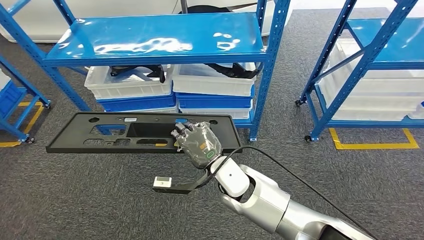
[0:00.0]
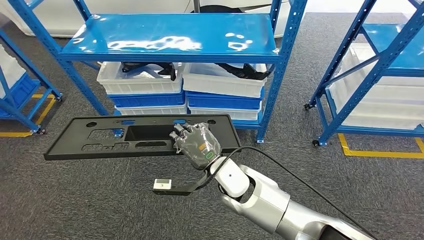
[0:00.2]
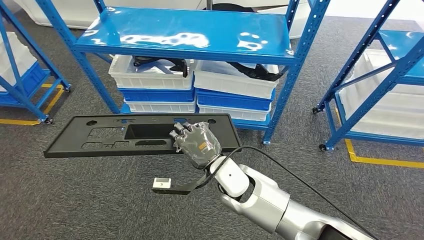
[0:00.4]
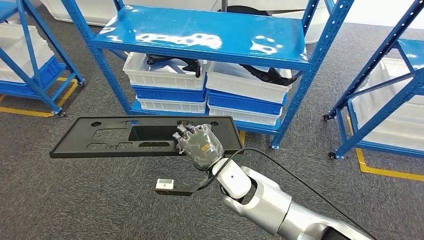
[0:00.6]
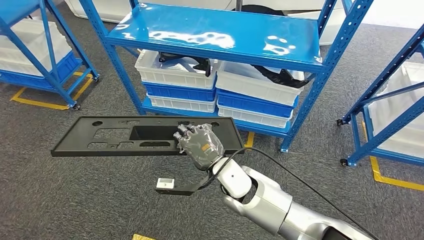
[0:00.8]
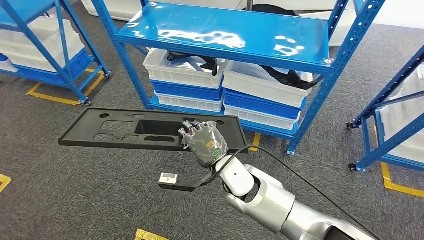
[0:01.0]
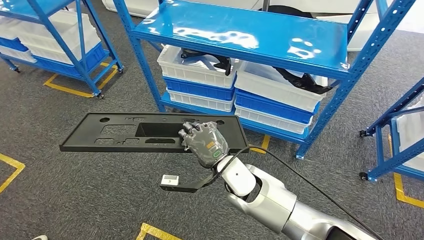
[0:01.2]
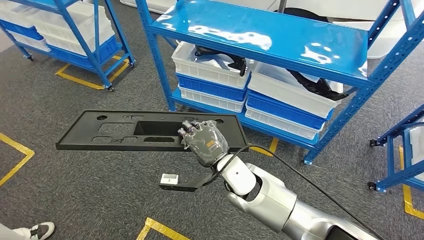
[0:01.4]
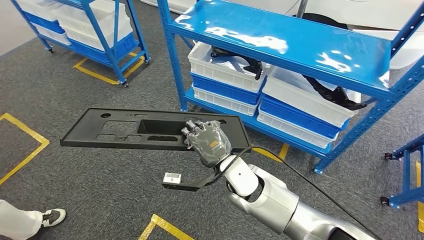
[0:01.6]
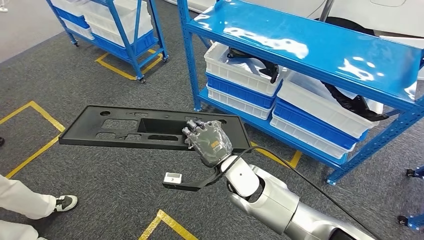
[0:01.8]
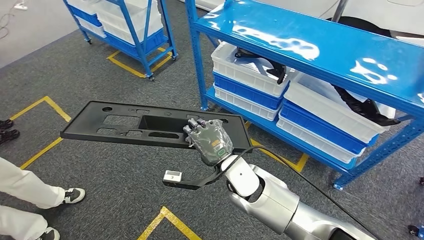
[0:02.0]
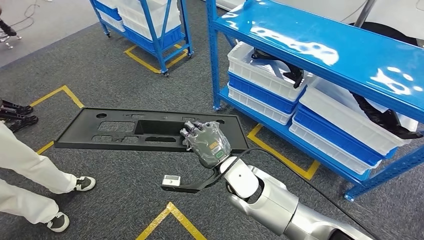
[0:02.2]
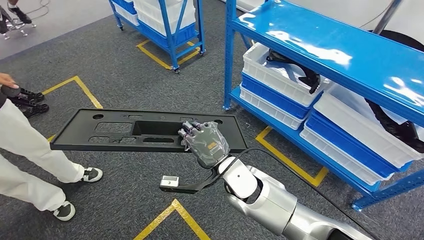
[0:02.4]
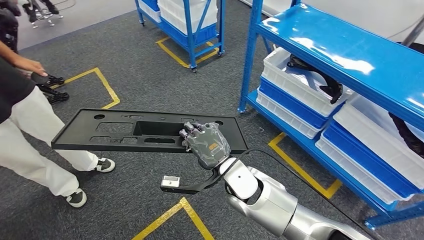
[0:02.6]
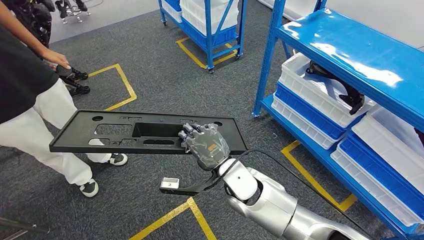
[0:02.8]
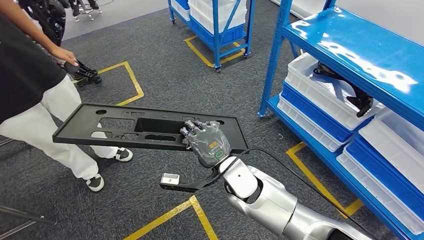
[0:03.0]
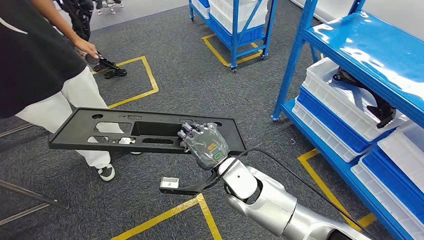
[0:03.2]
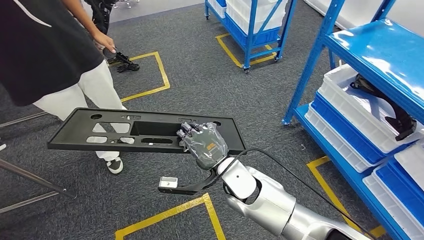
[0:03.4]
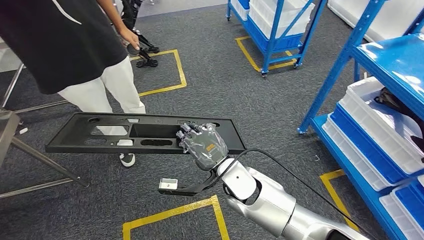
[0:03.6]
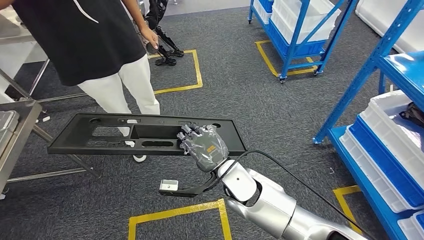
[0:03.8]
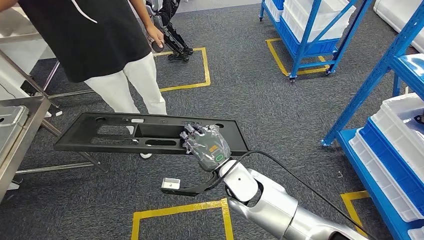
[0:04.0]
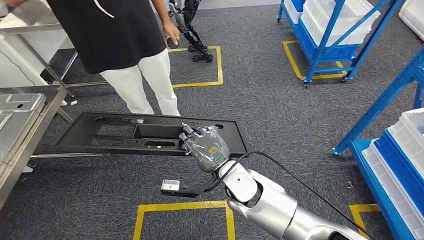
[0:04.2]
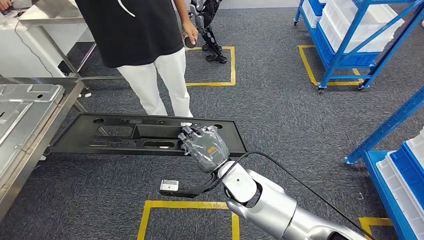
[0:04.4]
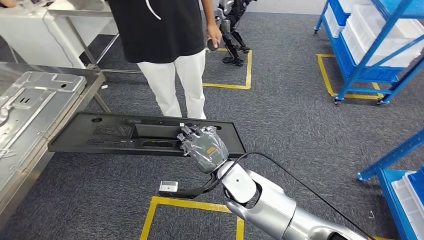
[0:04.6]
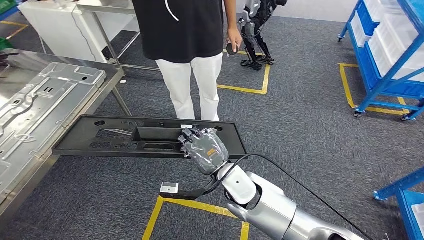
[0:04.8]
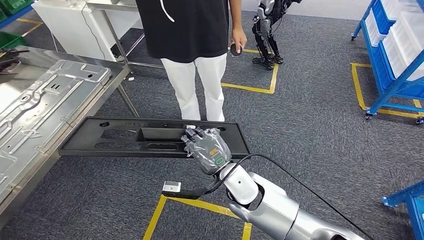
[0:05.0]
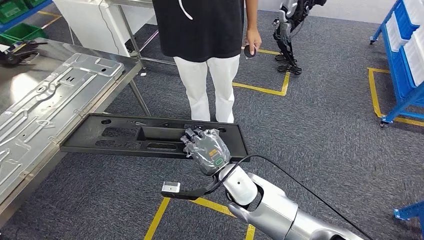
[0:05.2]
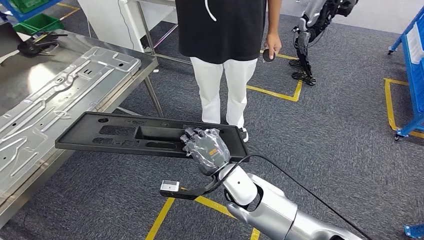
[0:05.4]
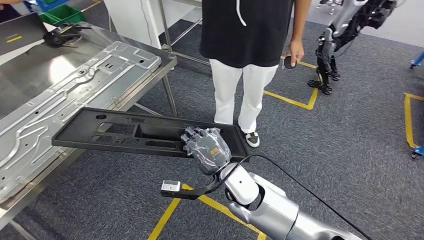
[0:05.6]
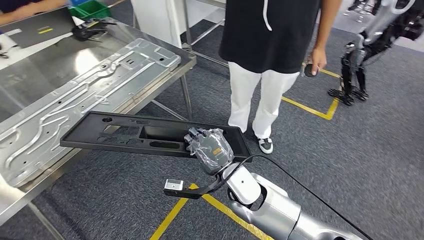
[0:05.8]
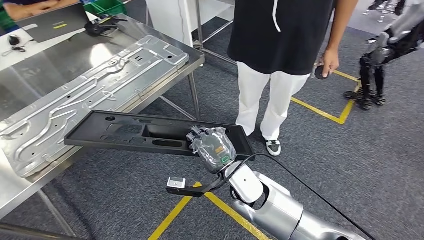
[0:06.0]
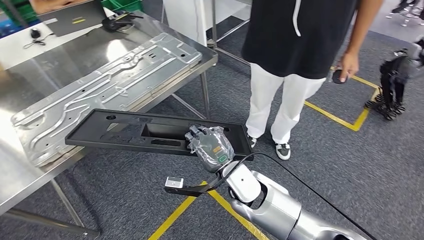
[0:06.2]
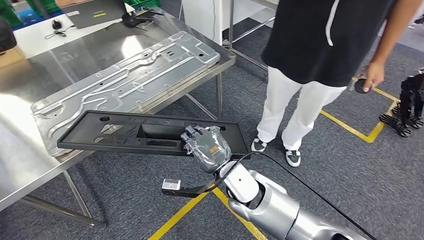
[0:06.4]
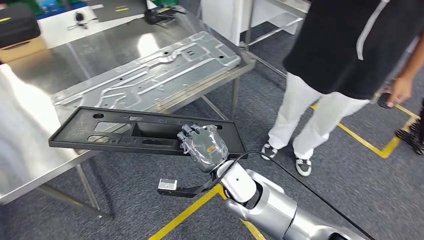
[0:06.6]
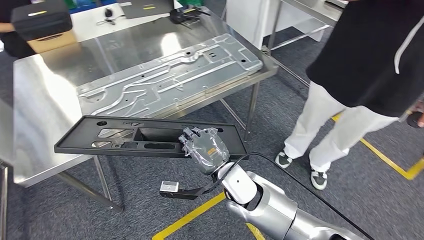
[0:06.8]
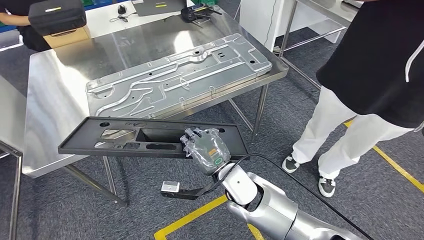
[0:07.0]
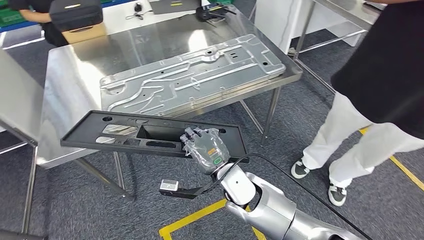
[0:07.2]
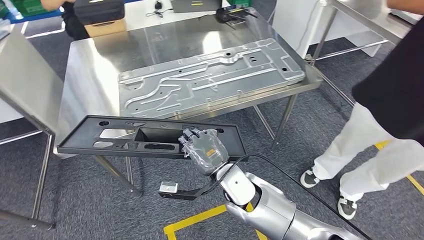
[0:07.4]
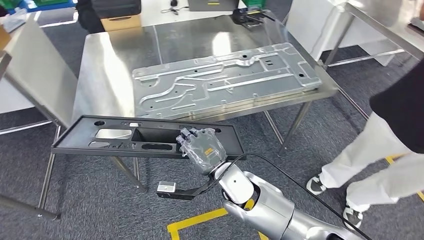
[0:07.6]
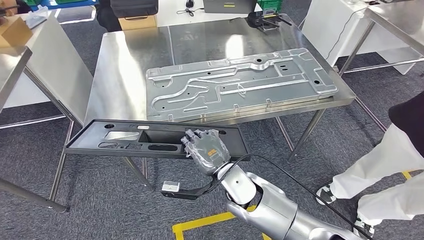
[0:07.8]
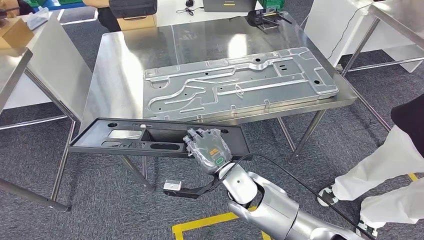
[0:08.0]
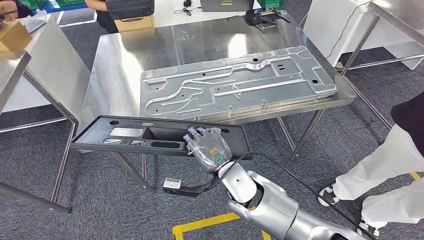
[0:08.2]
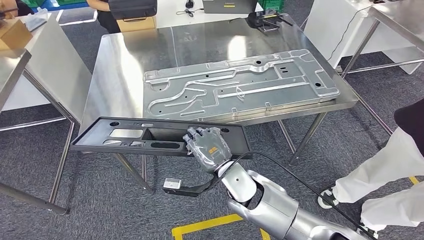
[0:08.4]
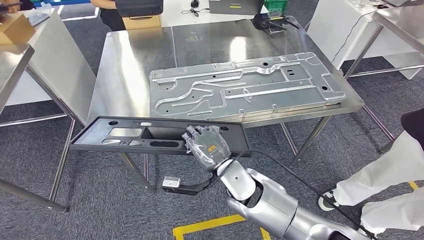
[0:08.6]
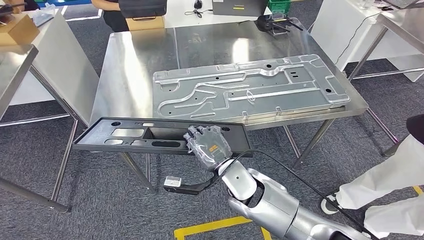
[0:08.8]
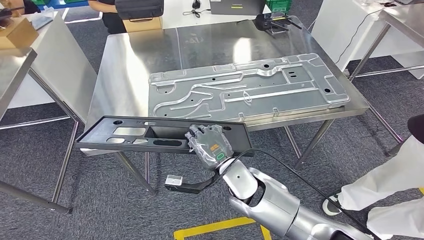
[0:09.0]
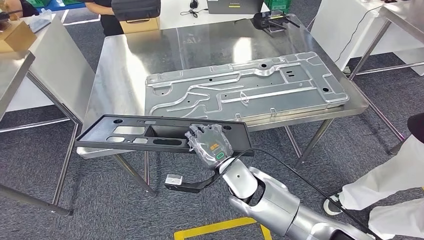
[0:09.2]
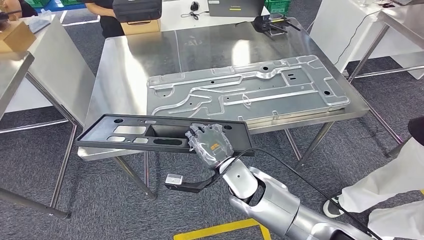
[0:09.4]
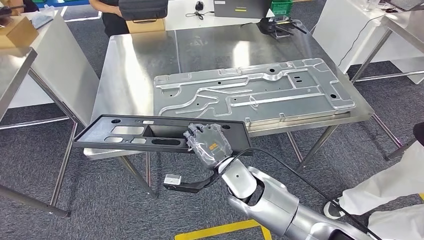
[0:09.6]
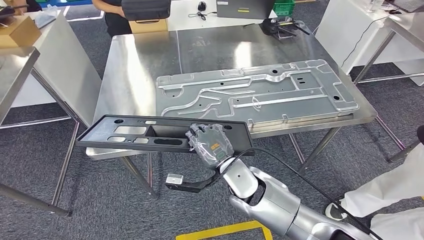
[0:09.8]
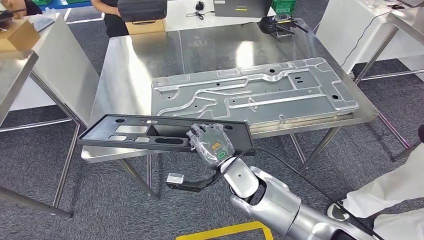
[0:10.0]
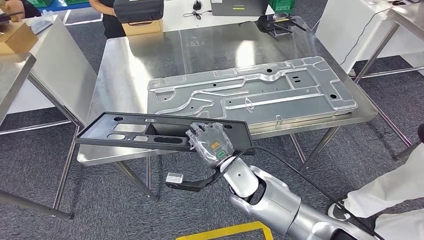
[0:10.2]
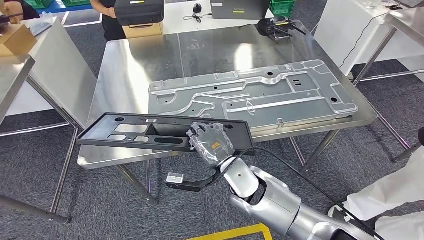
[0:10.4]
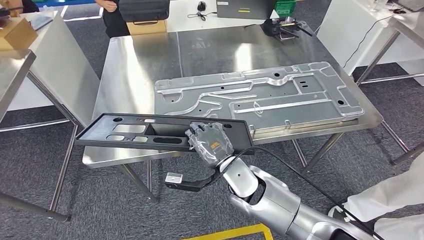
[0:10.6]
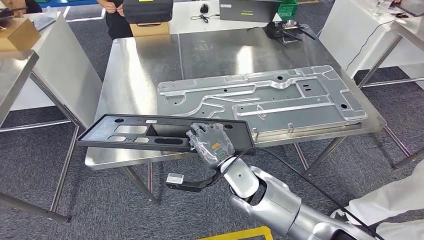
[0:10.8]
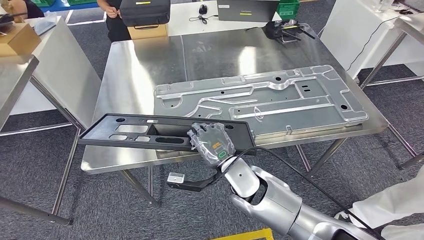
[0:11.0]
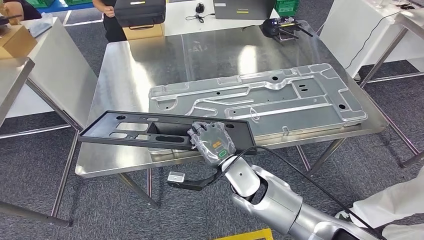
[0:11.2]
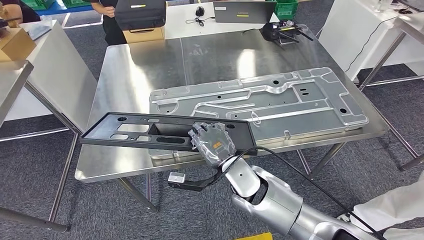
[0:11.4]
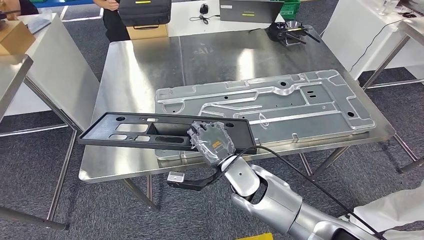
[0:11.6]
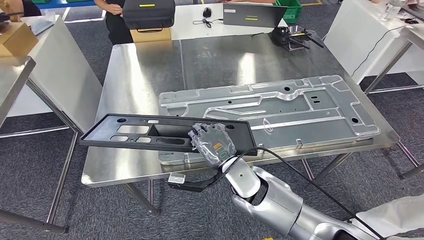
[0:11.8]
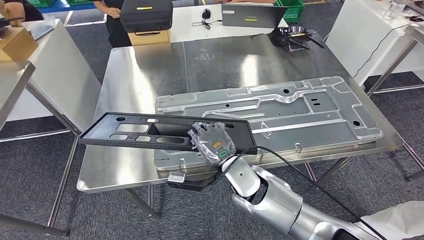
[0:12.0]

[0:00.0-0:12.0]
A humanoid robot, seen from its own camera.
Step, 0:01.0 to 0:06.4: Move the large material to the workbench.

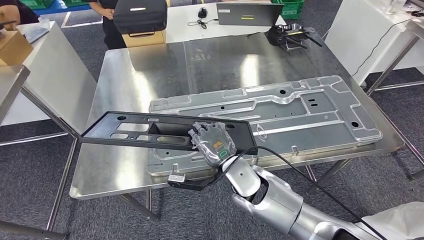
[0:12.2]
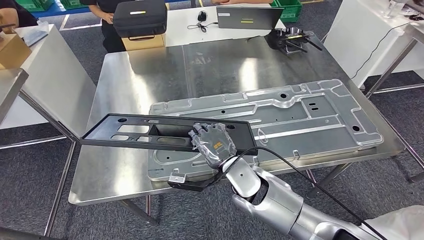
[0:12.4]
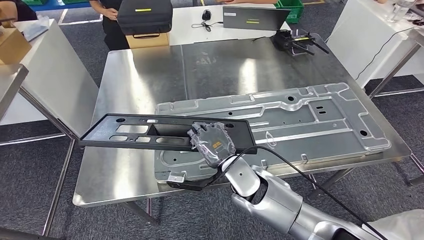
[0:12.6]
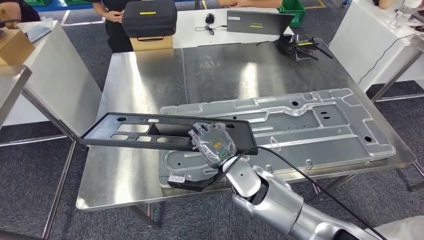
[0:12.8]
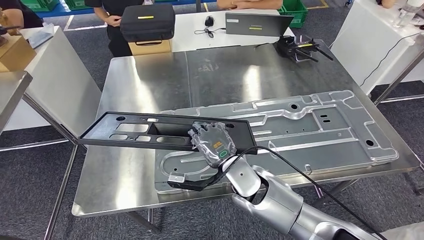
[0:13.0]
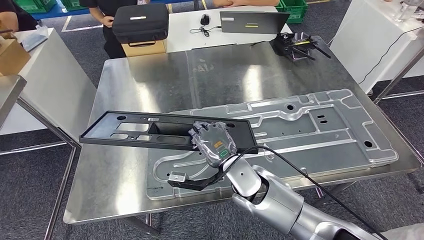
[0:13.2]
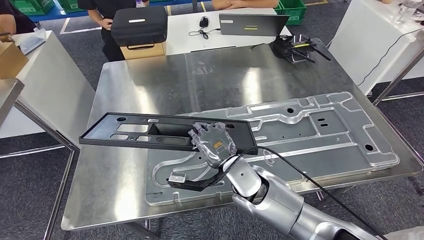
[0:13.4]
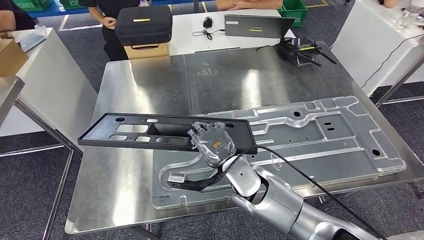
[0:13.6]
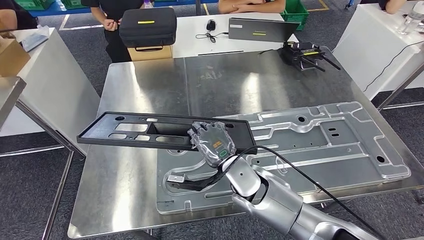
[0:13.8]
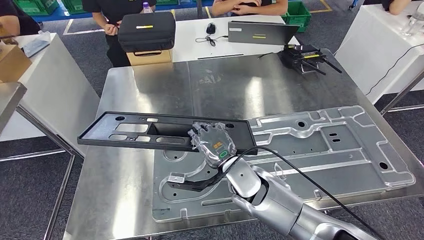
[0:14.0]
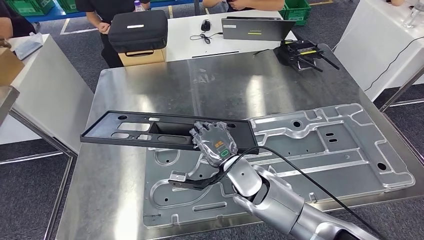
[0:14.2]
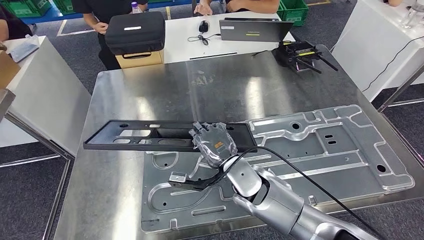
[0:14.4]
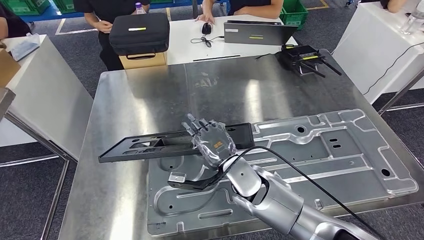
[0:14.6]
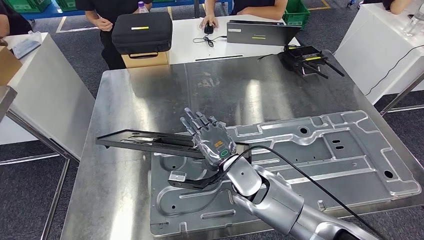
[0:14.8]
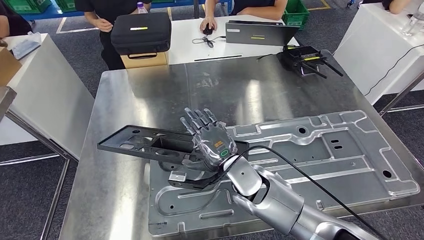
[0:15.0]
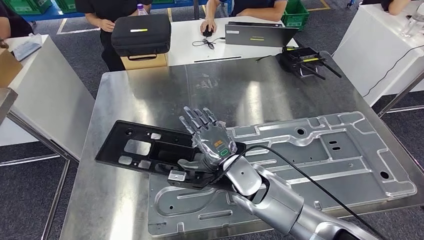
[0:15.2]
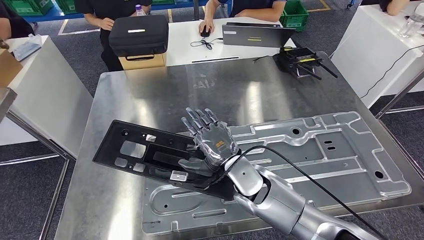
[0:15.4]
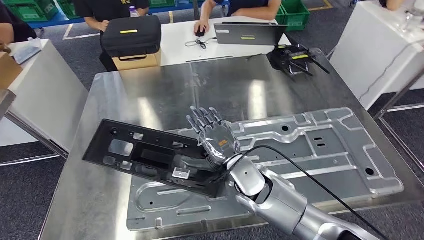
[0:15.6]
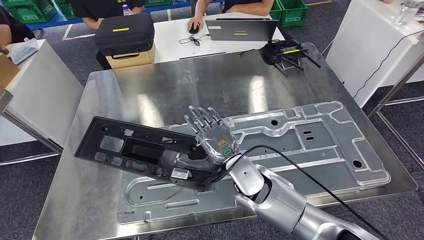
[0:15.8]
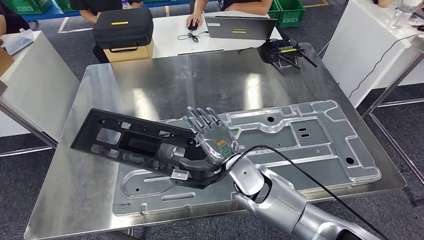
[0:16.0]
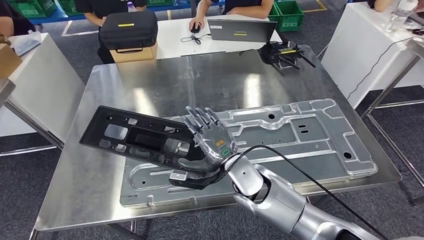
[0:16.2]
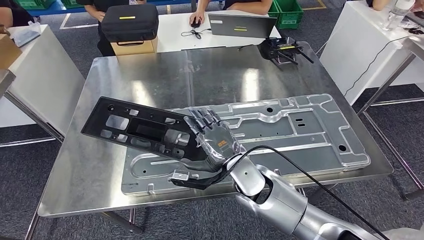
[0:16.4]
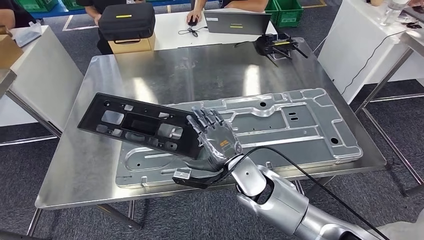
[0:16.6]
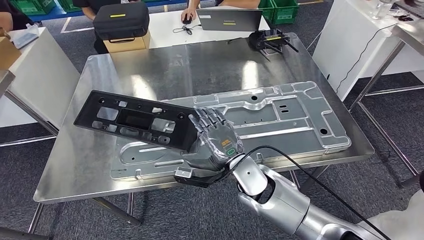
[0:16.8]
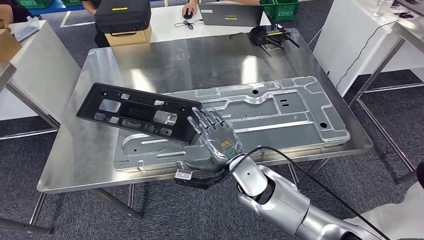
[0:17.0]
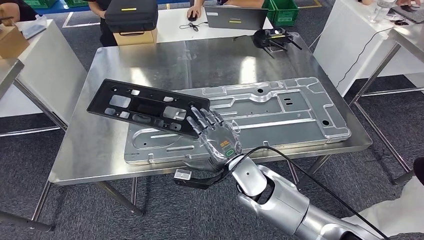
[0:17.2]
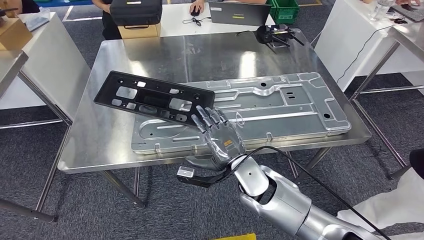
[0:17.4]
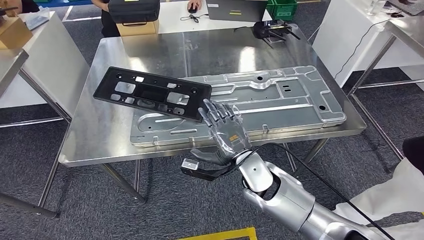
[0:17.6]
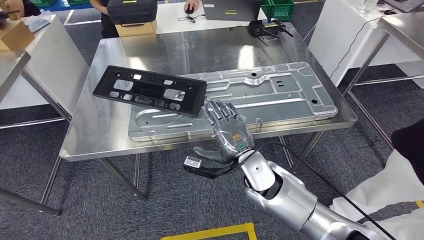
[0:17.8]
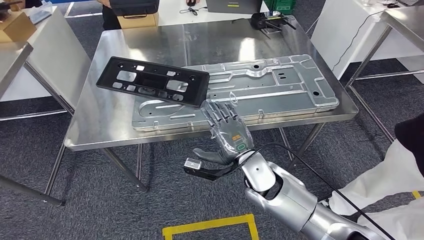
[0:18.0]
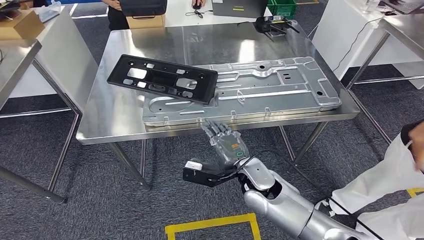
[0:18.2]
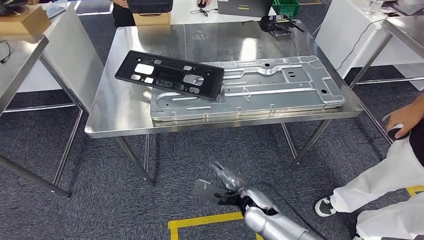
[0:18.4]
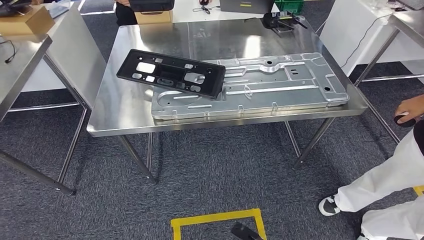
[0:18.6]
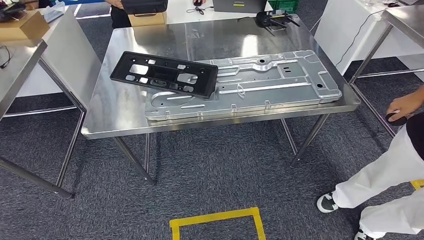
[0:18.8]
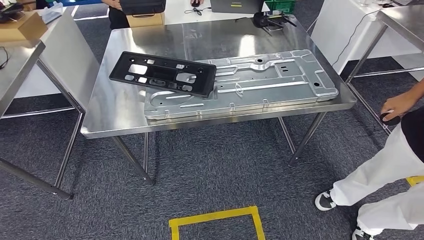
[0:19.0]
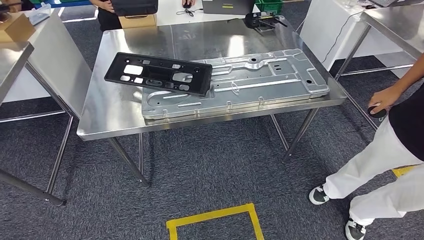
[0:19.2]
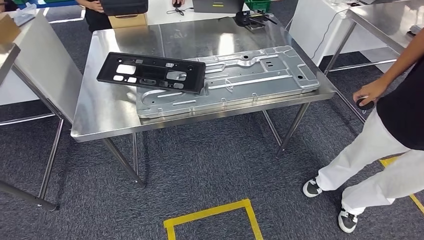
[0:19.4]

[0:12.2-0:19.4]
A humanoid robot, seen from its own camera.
Step, 0:12.2 to 0:16.8: Insert the large material into the corresponding slot on the workbench.
